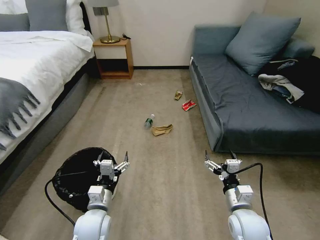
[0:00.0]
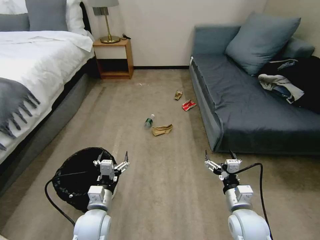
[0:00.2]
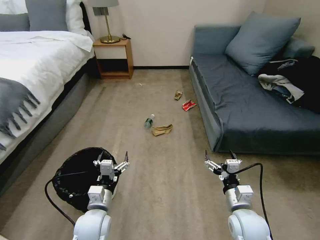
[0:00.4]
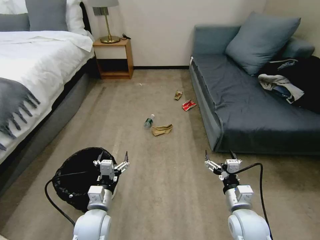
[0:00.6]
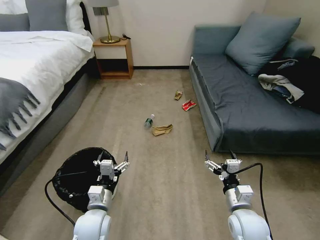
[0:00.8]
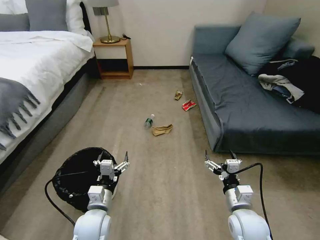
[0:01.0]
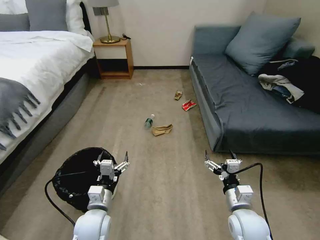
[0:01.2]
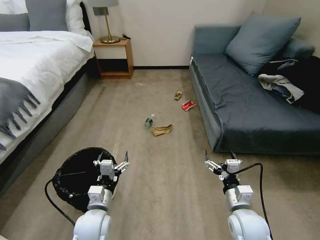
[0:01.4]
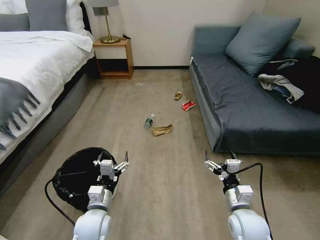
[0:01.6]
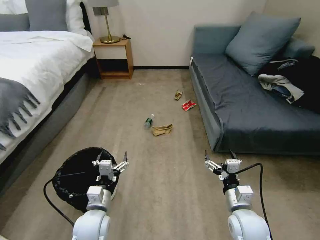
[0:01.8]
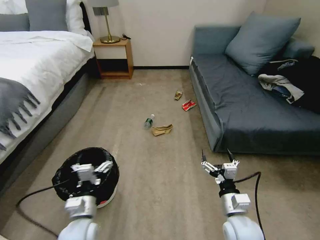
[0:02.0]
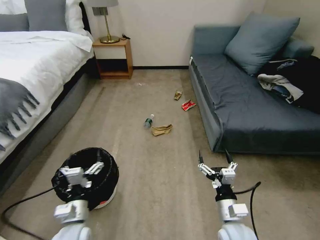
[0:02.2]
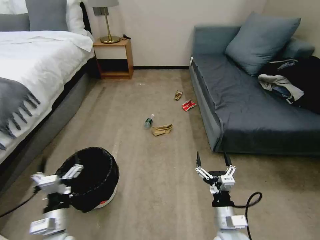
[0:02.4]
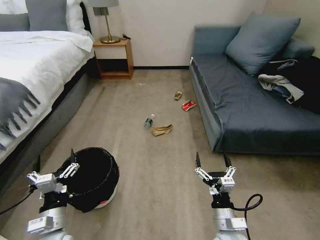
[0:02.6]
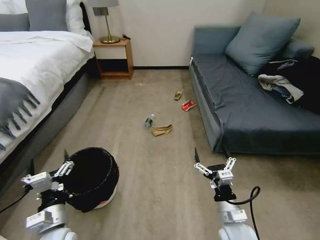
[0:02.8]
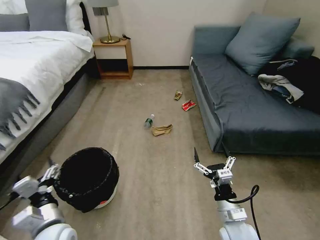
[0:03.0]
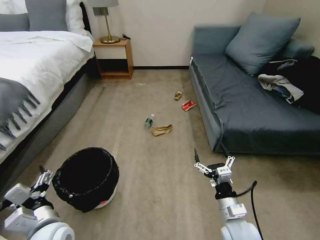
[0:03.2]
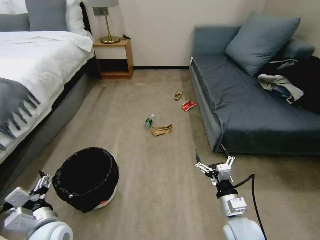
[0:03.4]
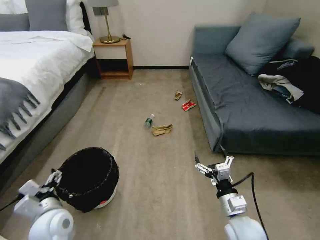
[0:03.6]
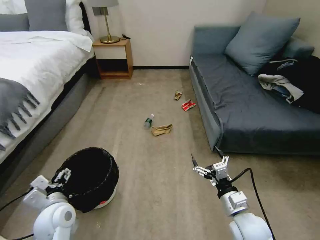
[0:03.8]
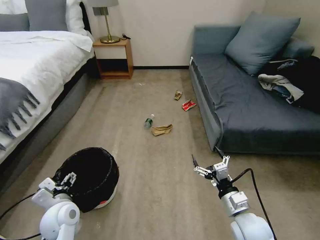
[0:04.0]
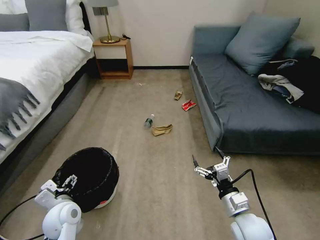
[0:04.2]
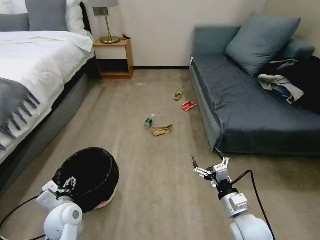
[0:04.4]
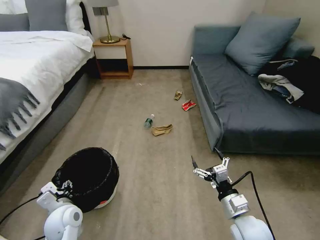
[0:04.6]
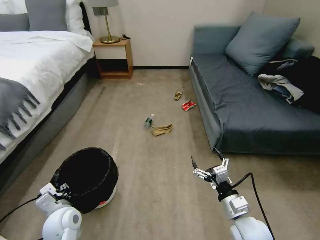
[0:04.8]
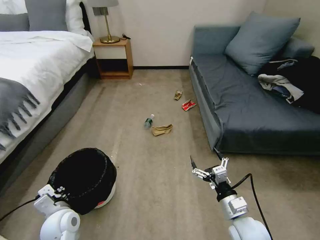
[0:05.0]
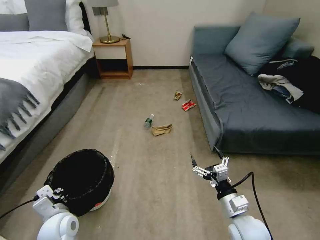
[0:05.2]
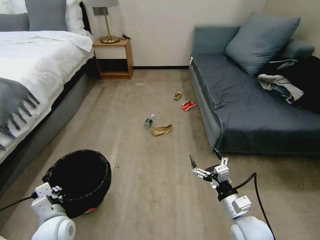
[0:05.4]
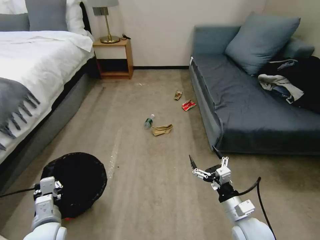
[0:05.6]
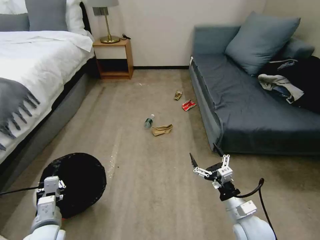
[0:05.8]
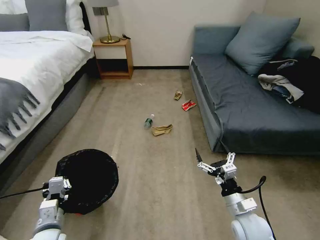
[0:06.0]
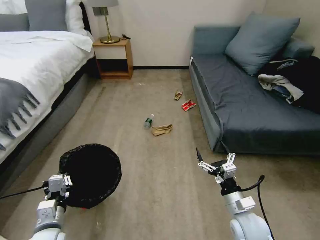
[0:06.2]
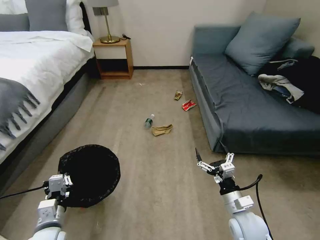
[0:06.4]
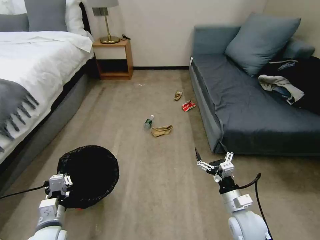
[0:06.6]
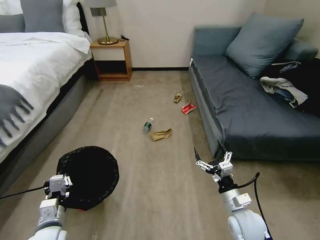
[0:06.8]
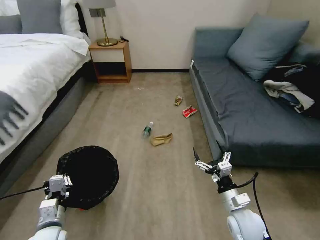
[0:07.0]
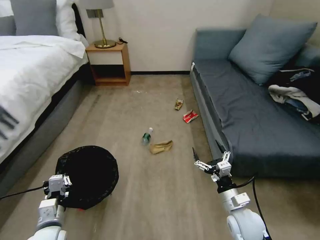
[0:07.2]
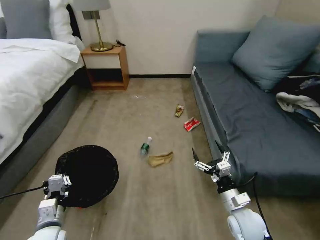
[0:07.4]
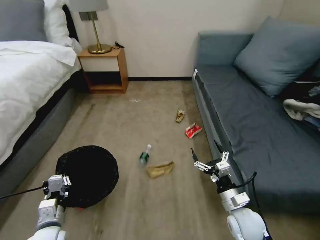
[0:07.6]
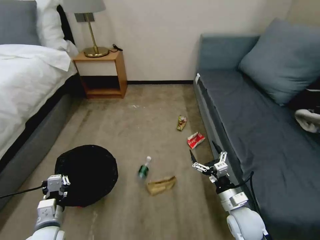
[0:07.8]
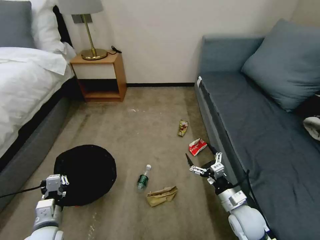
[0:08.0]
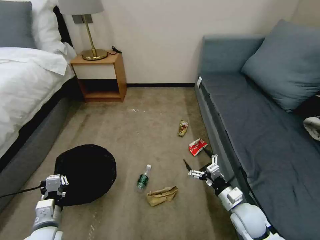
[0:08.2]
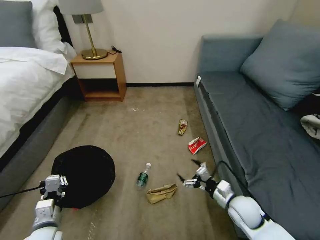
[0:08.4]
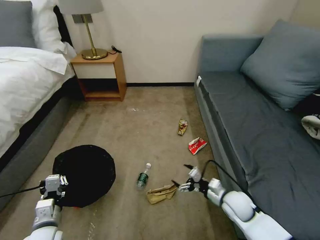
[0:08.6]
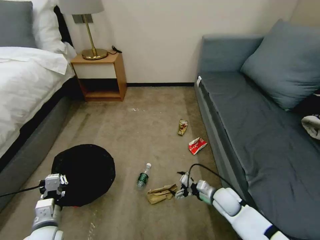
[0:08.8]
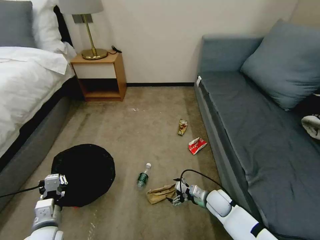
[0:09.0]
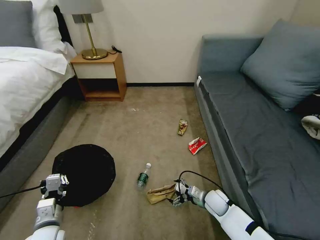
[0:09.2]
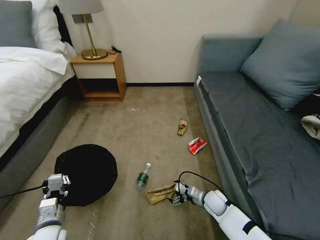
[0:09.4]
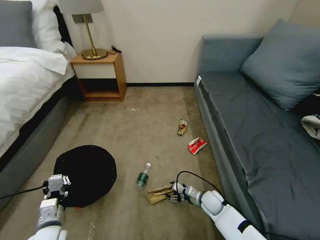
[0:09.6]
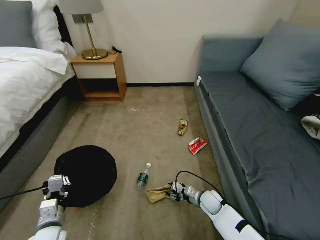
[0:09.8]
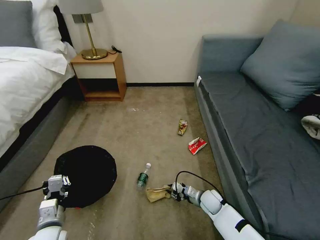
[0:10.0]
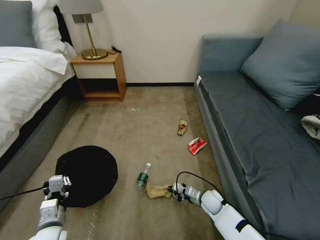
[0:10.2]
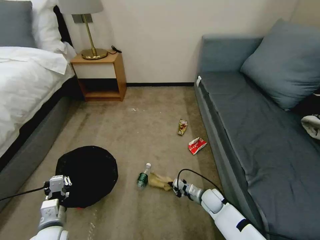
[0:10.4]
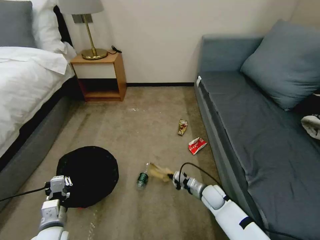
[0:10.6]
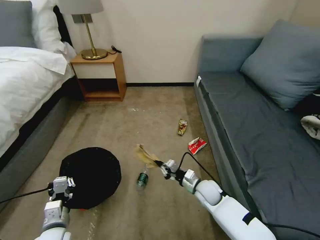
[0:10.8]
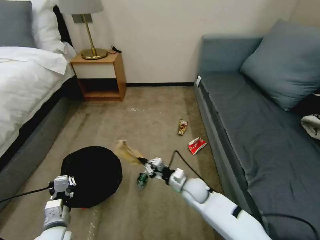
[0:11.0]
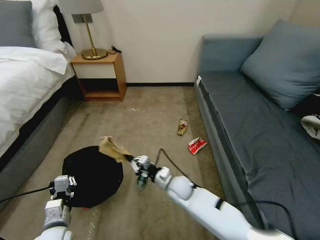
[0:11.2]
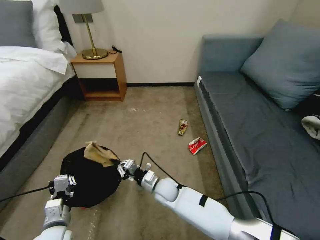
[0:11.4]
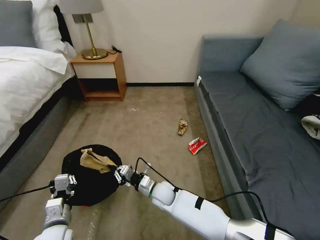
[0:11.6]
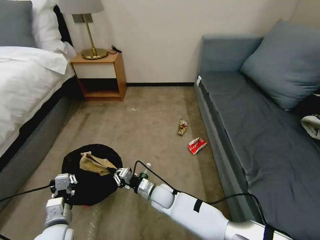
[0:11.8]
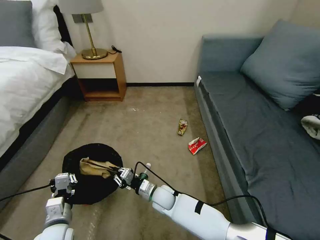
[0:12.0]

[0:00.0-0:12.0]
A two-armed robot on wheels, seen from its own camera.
Task of the whole recording: Pick up the trash bin, then pick up the garbage on the floor and place it into the trash bin.
0:01.6 to 0:03.0: The left gripper travels to the left and backward by approximately 10 cm.
0:03.0 to 0:04.4: The left gripper heads forward, covering about 5 cm.
0:04.4 to 0:06.0: The left gripper goes some 5 cm backward, and closes its fingers.
0:07.6 to 0:09.0: The right gripper travels downward and forward by approximately 15 cm.
0:09.0 to 0:10.4: The right gripper closes up.
0:10.4 to 0:12.0: The right gripper shifts about 20 cm to the left.

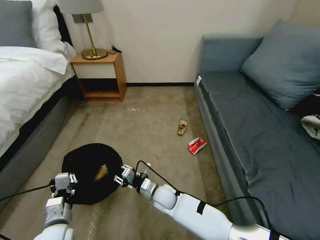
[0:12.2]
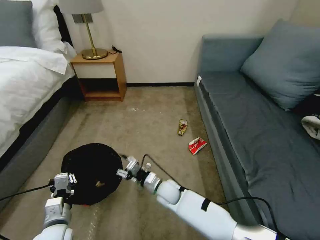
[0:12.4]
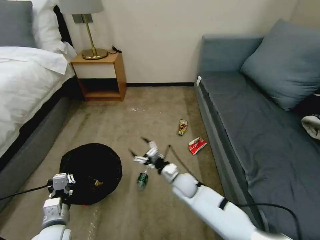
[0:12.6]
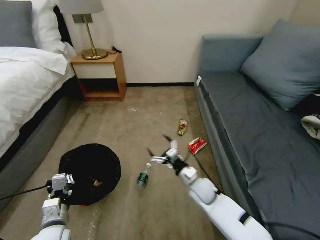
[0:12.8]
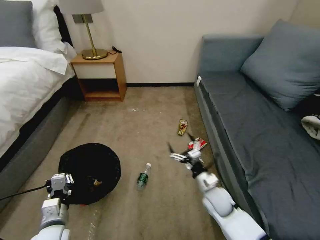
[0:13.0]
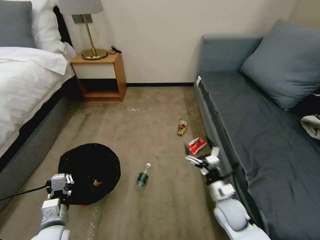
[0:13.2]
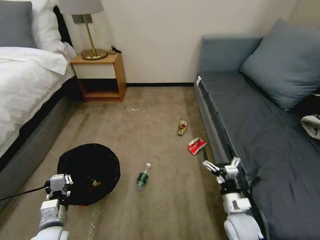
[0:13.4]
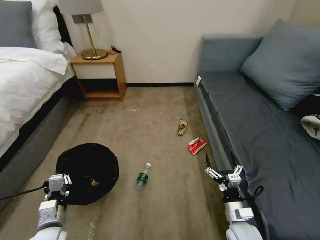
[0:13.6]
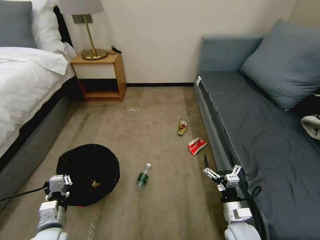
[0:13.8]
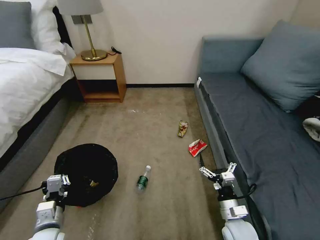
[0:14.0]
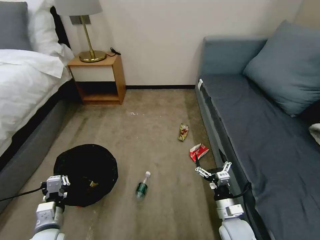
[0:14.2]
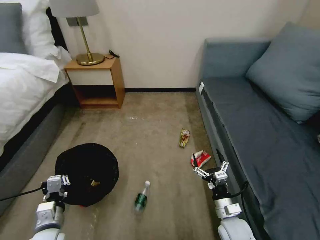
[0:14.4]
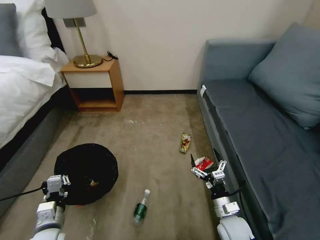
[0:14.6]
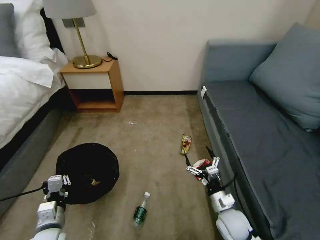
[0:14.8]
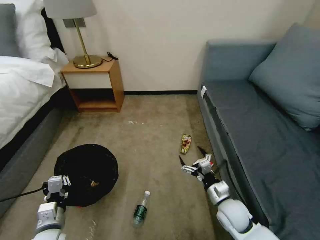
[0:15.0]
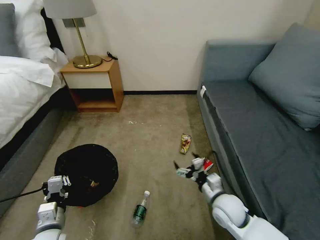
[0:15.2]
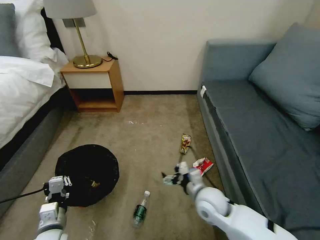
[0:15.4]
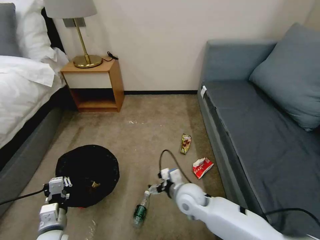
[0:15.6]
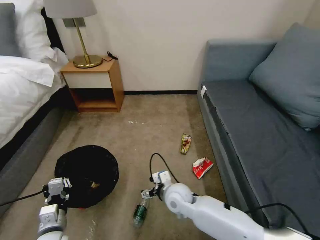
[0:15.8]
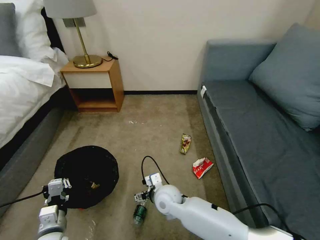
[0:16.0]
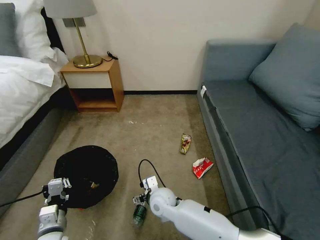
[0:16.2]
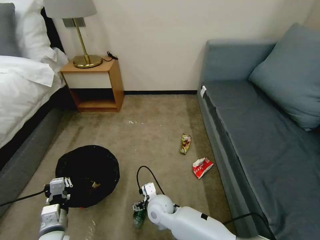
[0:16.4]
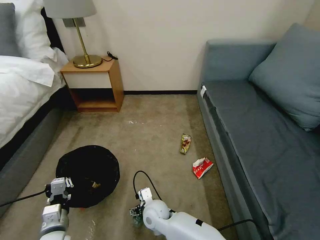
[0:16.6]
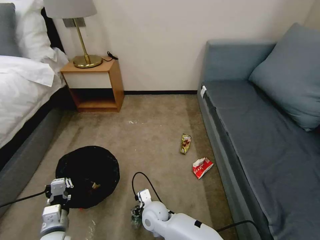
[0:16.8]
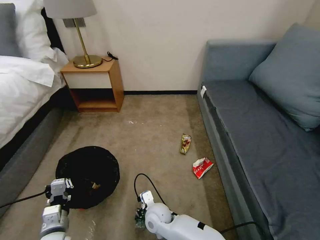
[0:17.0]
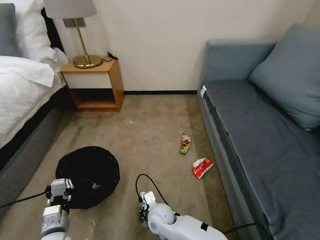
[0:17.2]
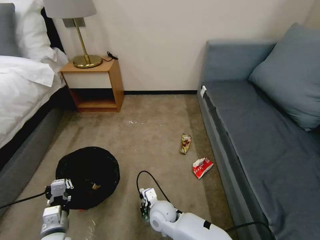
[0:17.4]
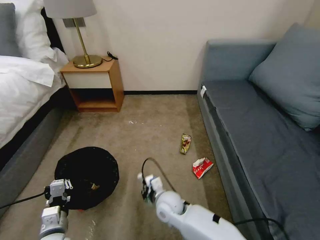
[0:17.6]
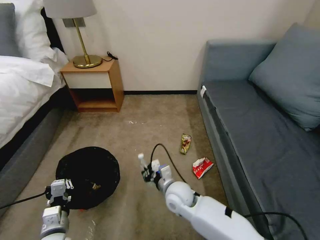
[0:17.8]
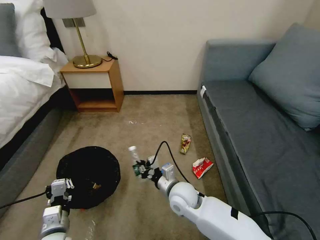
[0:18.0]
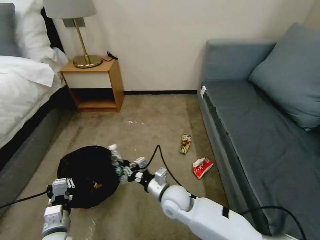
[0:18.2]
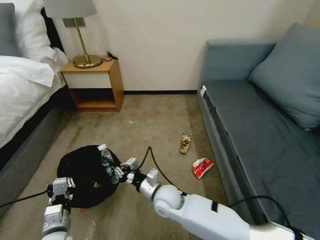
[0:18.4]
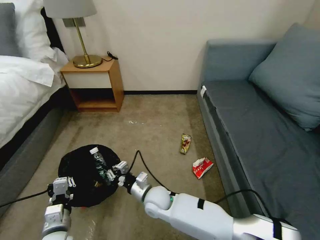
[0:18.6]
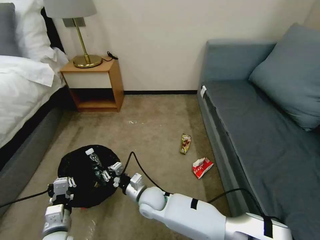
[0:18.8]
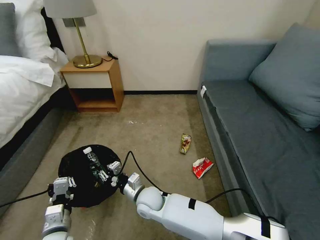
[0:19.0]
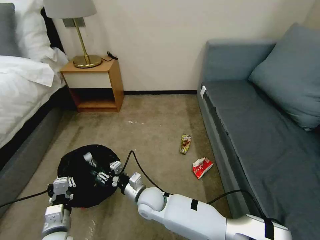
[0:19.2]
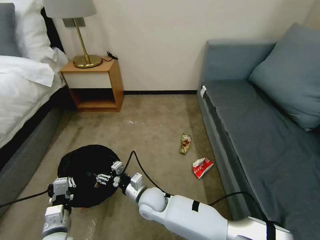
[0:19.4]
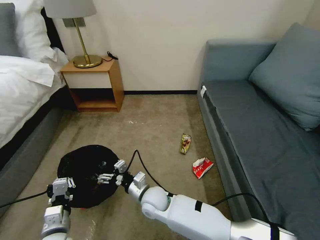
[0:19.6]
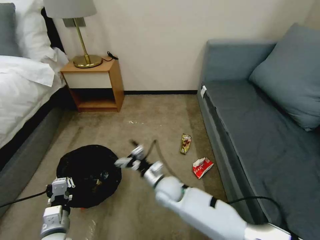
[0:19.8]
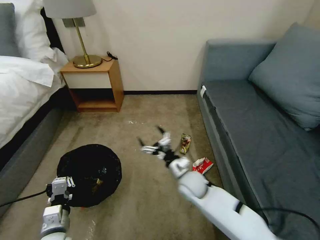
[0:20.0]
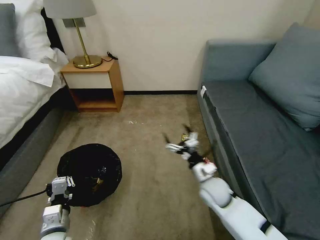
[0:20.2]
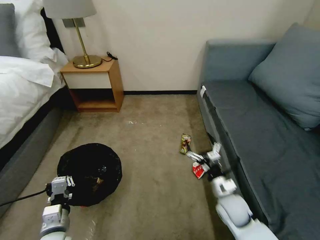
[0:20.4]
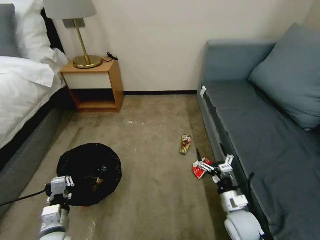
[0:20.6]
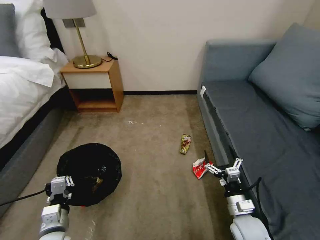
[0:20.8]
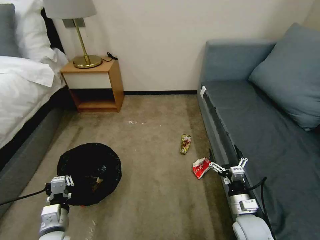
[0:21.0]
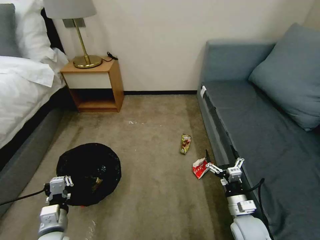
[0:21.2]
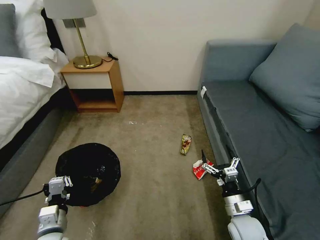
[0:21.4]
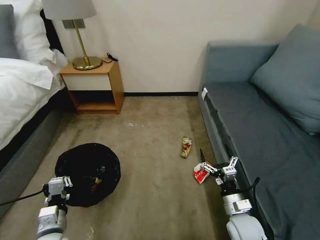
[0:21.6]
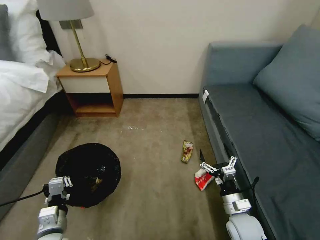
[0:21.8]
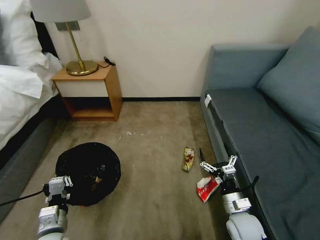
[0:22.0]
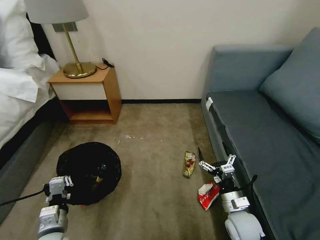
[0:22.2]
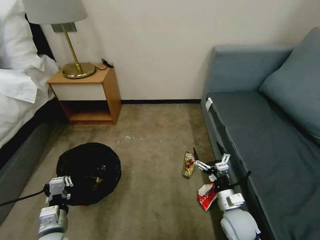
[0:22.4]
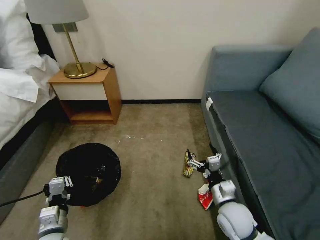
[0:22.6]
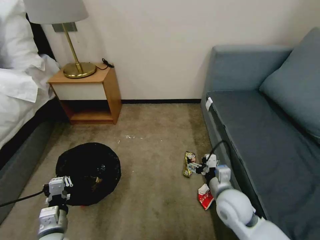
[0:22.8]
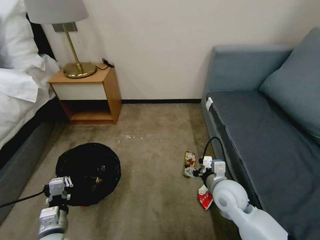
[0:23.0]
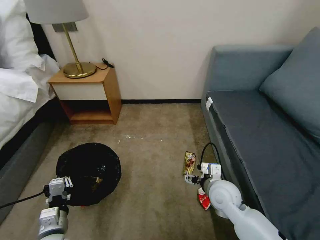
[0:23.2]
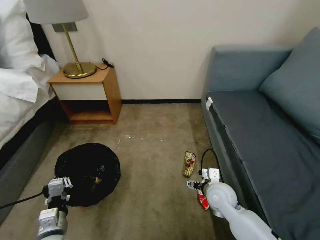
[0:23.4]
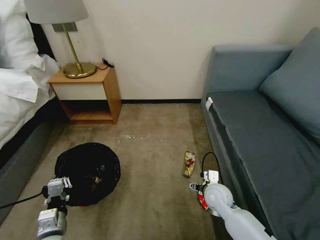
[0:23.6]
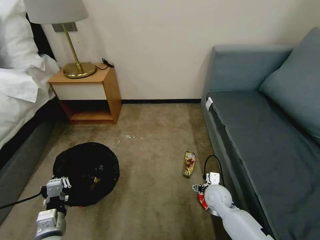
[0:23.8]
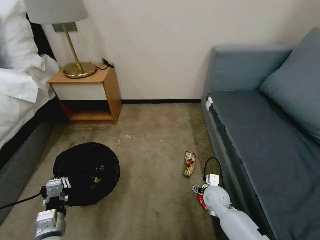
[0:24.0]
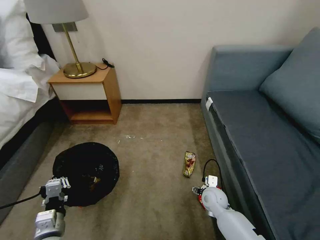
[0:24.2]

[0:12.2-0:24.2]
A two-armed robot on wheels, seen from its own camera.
Task of the whole recording: Pick up the trash bin, then pick up the garbage on the floor and place it into the trash bin.
0:12.2 to 0:13.8: The right gripper goes roughly 30 cm to the right and backward, and opens up.
0:13.8 to 0:15.2: The right gripper heads upward, forward and to the left, covering approximately 10 cm.
0:15.2 to 0:16.6: The right gripper goes roughly 25 cm to the left and downward.
0:16.6 to 0:18.2: The right gripper heads upward and to the right, covering approximately 10 cm, and closes its fingers.
0:18.2 to 0:19.8: The right gripper goes to the left and returns, some 10 cm each way, and opens.
0:19.8 to 0:21.2: The right gripper travels to the right and backward by about 30 cm.
0:21.2 to 0:22.6: The right gripper shifts roughly 5 cm to the left.
0:22.6 to 0:24.2: The right gripper goes about 15 cm downward and forward.
